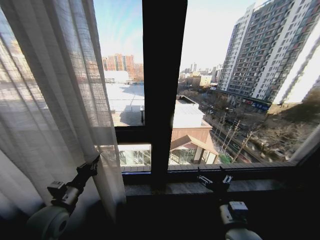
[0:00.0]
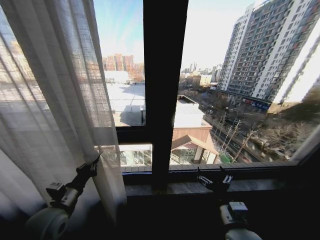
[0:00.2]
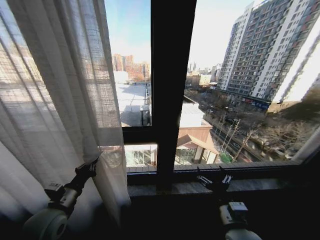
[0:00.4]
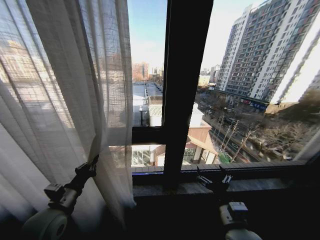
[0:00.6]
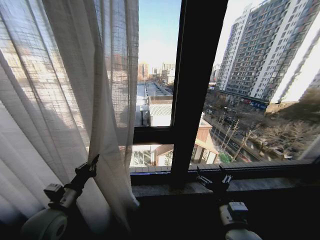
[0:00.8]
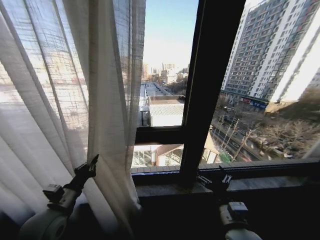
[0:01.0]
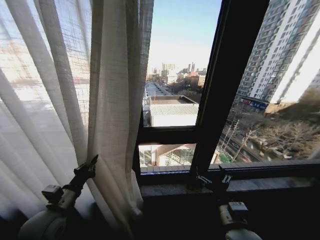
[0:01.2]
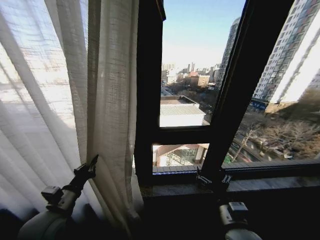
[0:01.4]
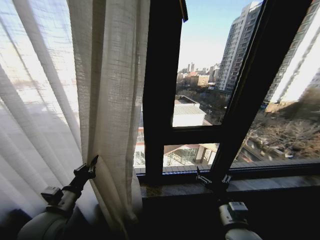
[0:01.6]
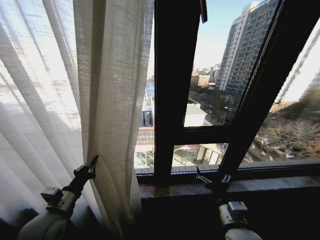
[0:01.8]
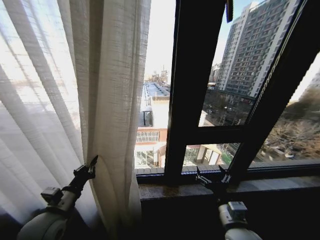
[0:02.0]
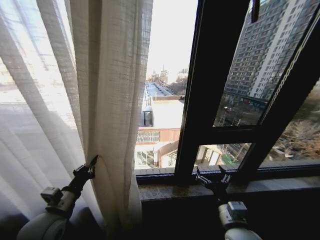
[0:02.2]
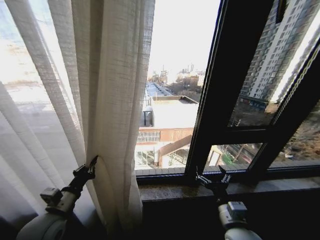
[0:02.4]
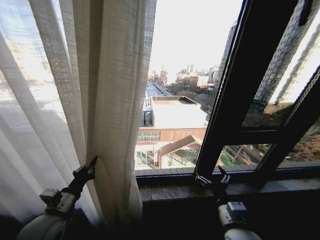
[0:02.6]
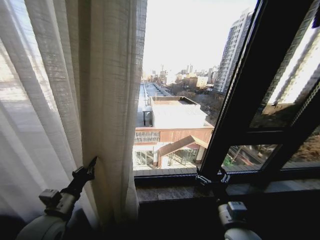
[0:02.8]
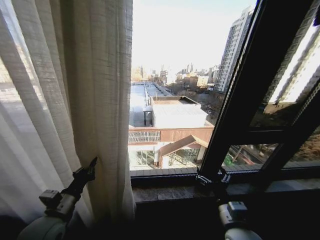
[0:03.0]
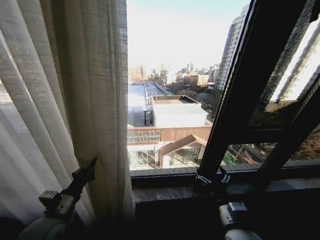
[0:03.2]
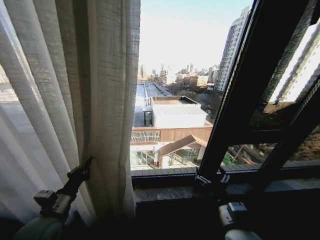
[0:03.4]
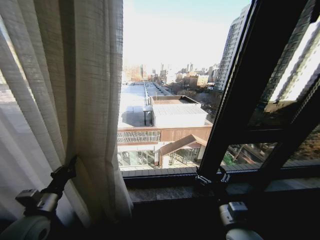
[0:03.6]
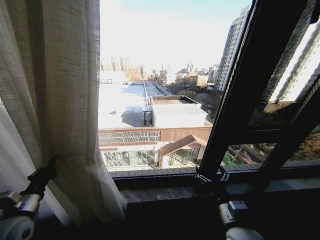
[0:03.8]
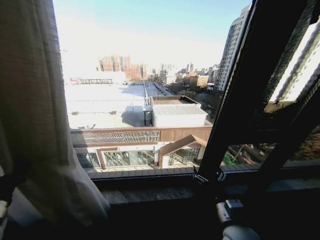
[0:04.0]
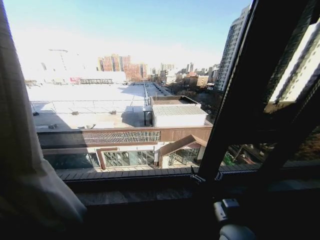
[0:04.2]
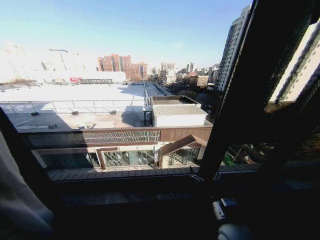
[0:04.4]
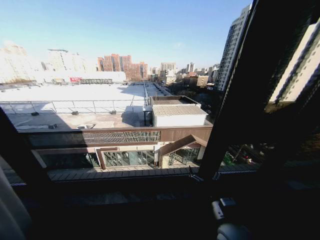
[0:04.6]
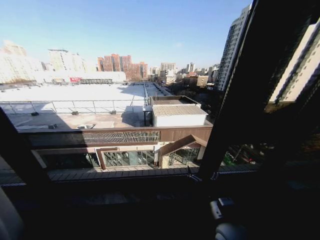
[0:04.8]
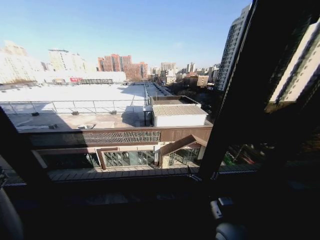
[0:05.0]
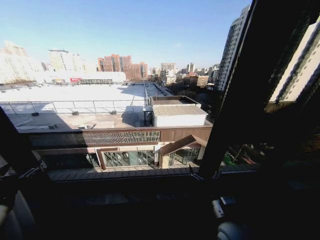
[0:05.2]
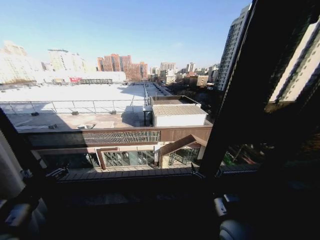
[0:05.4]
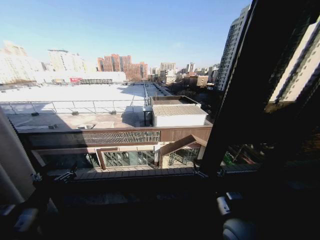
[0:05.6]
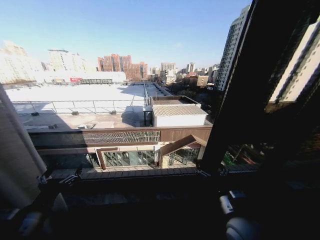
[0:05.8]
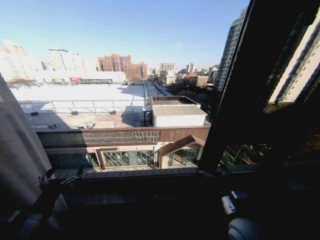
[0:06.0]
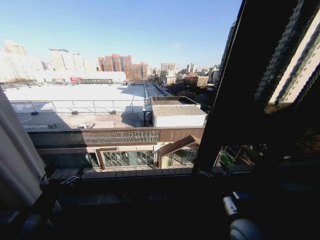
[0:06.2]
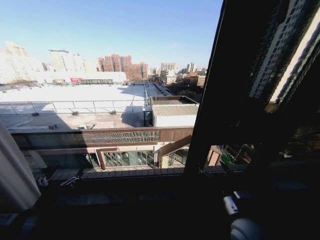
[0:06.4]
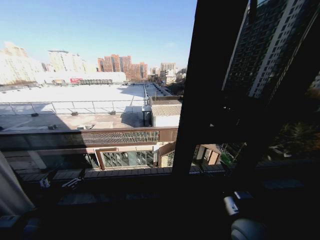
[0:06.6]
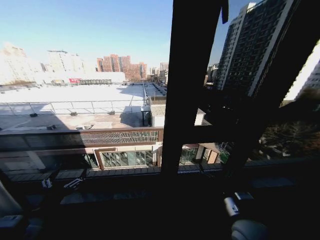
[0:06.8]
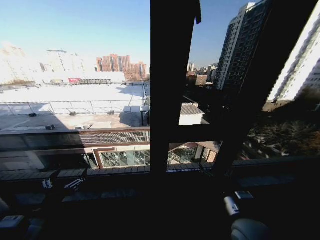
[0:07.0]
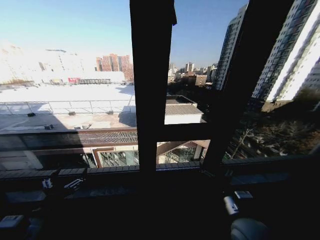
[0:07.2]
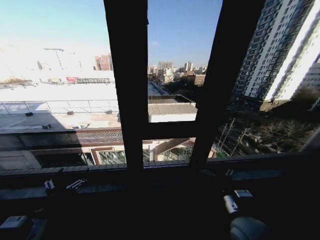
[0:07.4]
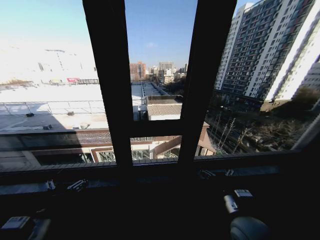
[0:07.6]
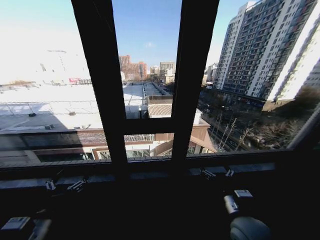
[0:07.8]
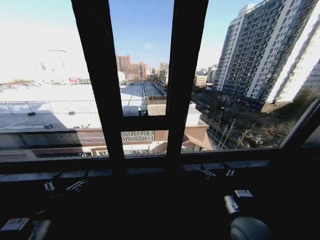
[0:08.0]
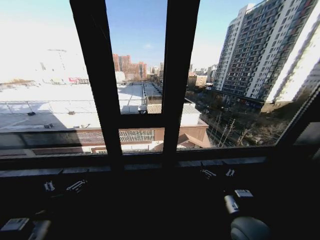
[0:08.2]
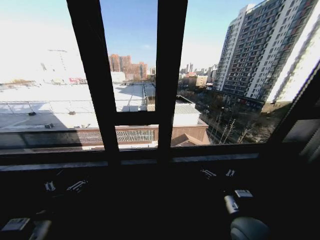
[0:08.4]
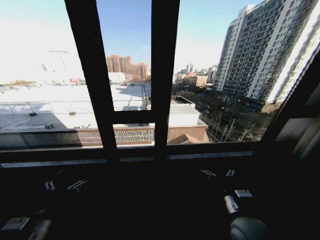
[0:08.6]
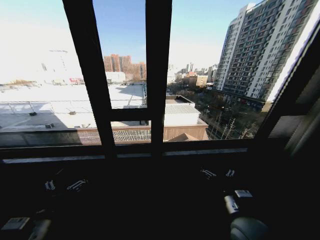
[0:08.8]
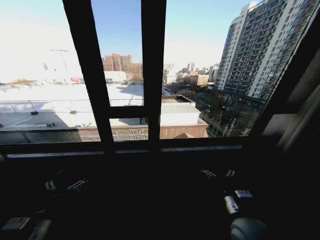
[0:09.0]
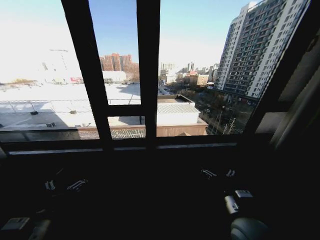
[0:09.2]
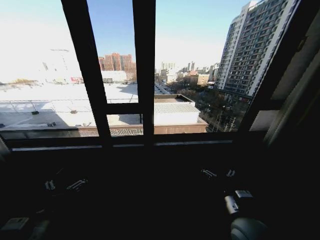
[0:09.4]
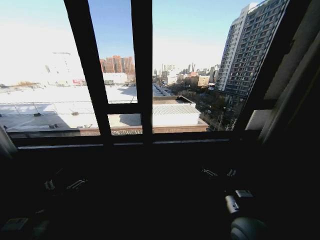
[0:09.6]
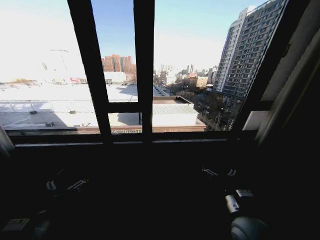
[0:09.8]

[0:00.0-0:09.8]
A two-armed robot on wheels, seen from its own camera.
Task of the whole recording: Open the curtains by pulling them apart, changing their state from closed to fully open.
2.8 to 4.2 s: The left gripper goes about 20 cm to the left.
4.2 to 5.6 s: The left gripper goes some 15 cm to the right, and opens up.

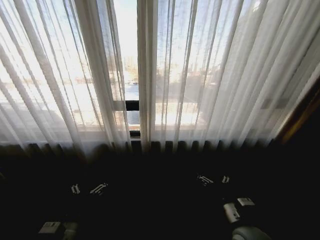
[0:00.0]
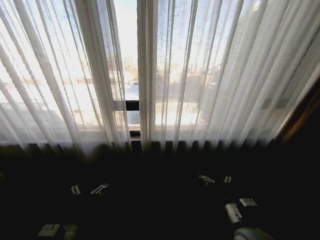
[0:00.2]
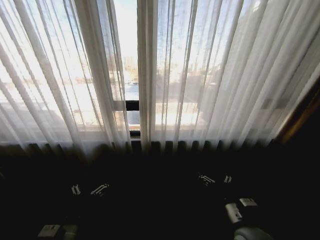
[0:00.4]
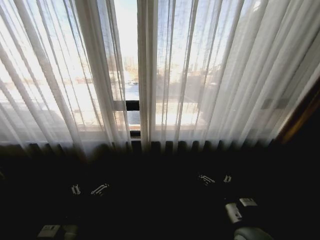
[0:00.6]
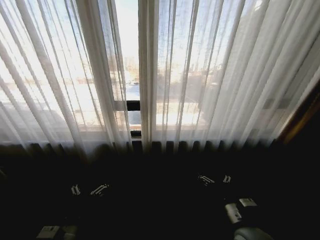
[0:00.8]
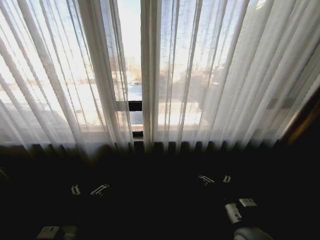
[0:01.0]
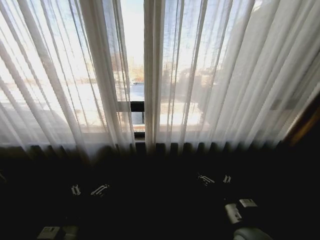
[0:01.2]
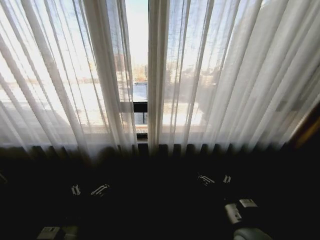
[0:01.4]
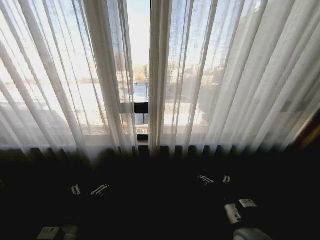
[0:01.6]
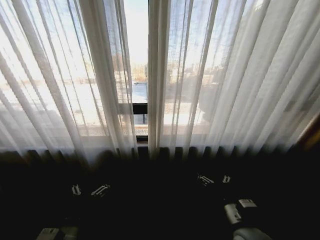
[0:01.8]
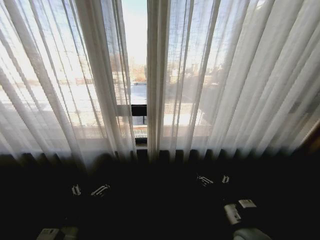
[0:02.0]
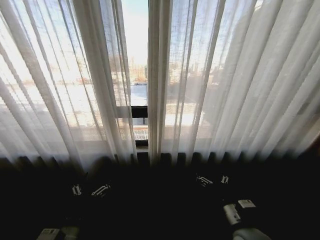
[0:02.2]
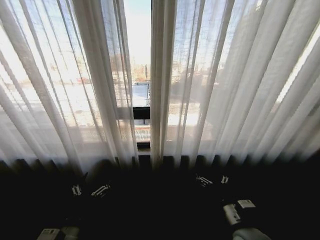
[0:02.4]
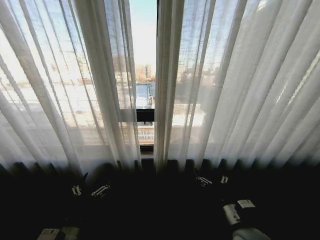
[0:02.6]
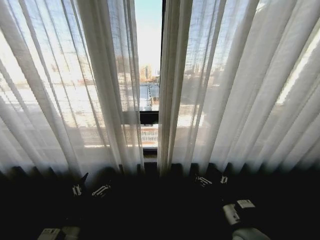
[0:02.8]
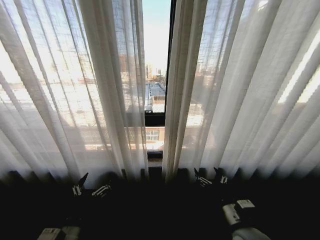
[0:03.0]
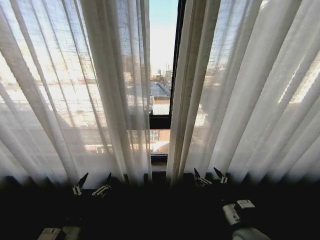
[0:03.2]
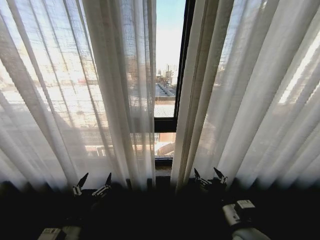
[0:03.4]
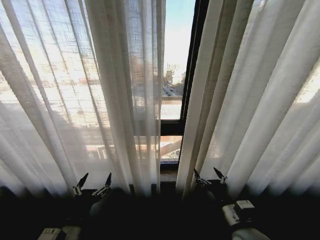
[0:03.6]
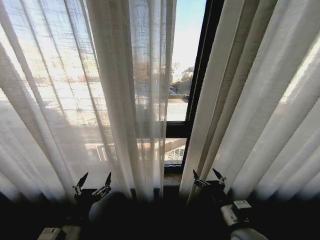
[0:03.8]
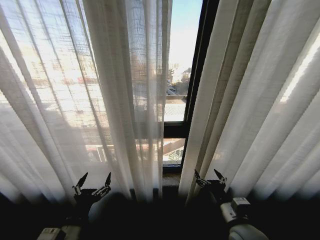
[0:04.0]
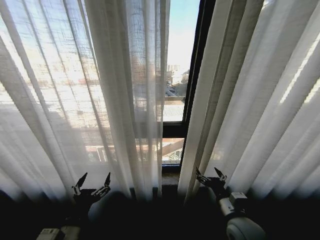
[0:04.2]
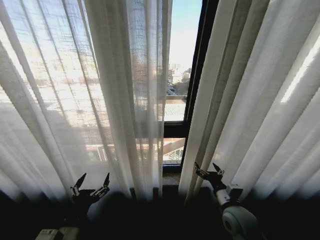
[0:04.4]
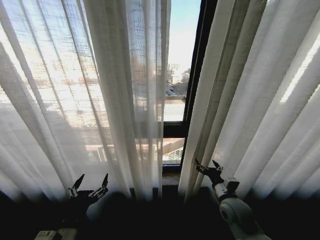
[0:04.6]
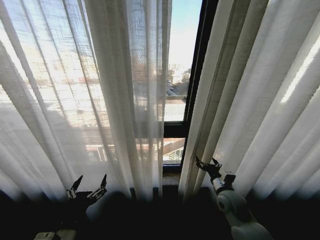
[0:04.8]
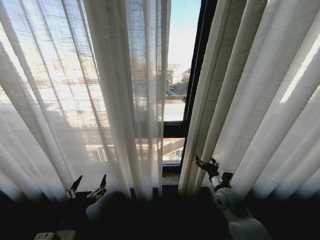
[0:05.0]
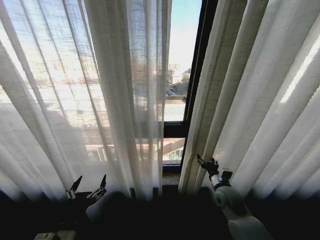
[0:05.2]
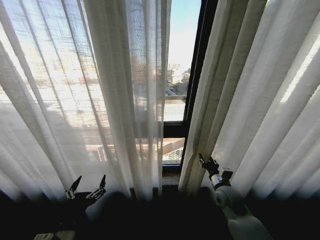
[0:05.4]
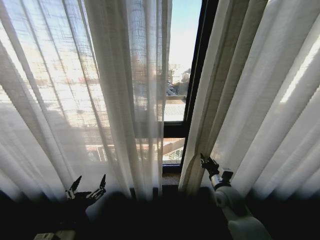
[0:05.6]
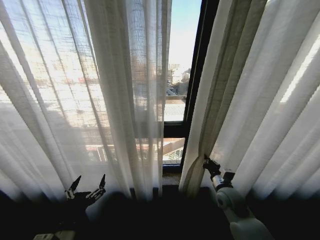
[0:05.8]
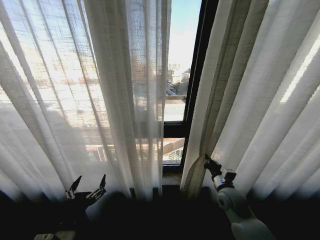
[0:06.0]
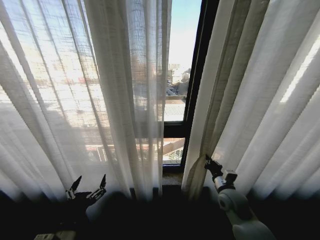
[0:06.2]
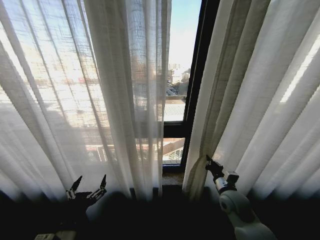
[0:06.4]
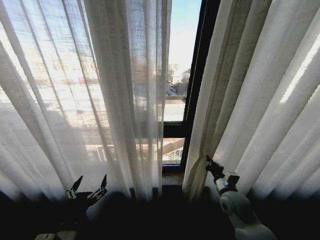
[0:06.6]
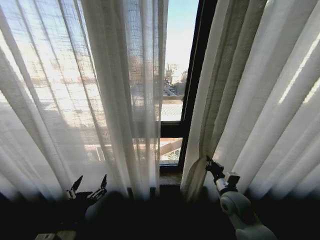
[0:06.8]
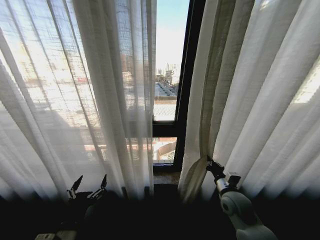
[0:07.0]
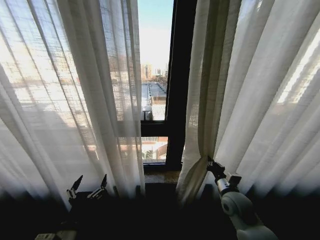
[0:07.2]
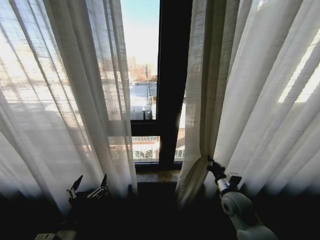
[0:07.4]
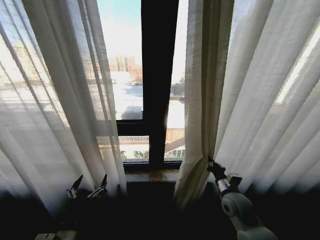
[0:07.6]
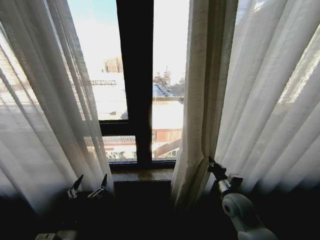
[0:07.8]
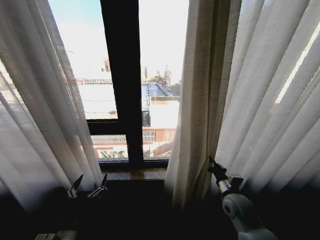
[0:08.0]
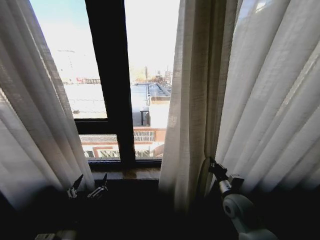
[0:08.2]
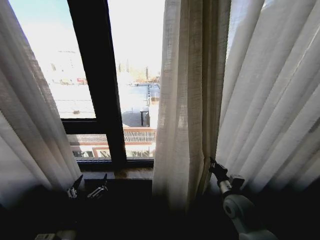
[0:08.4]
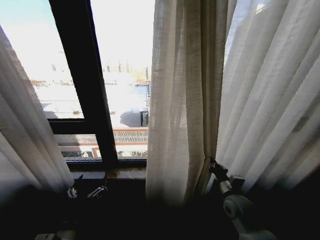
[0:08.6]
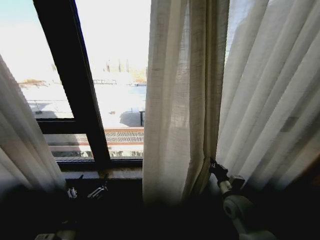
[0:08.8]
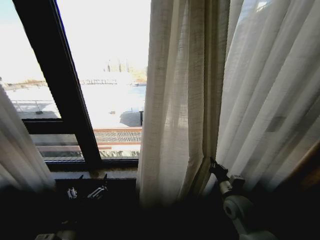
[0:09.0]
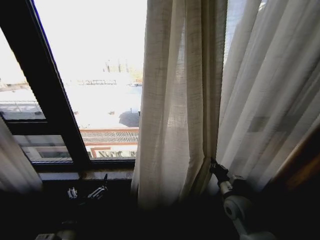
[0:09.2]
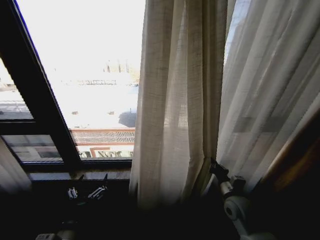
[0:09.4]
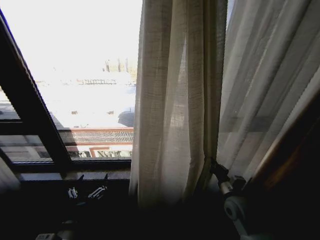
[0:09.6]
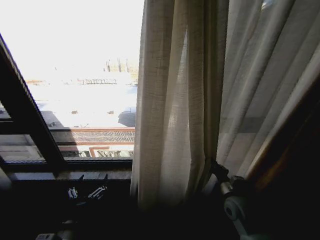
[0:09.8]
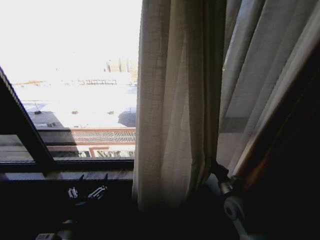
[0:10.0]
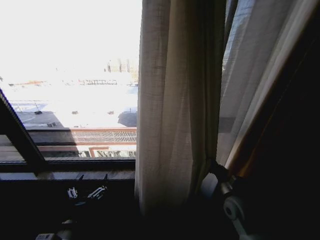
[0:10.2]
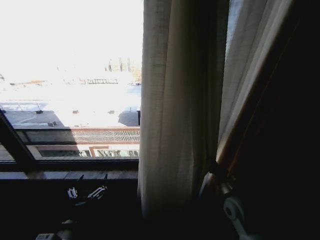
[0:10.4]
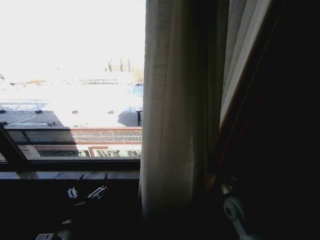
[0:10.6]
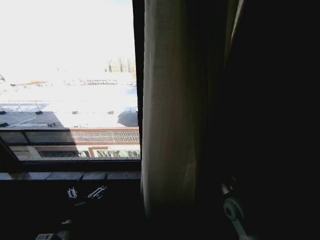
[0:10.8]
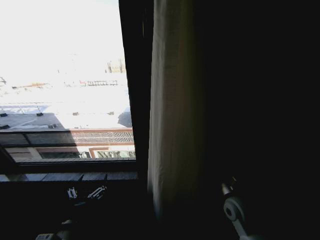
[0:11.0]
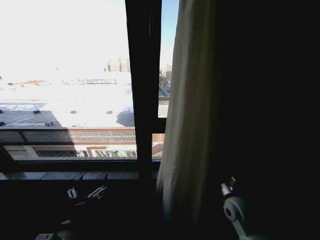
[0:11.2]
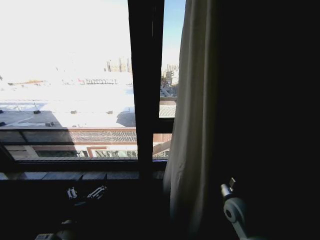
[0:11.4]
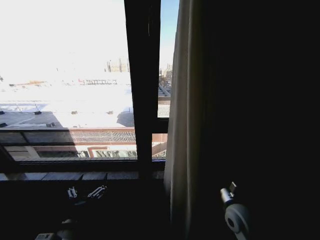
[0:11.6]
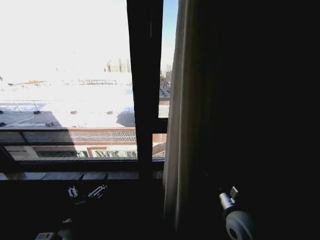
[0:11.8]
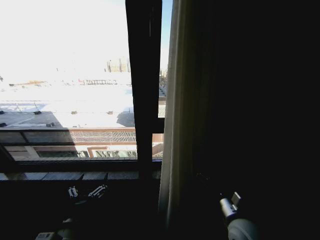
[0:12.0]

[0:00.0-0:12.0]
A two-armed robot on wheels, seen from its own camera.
Task of the whole recording: Open the curtains by pulling them apart, changing their state from closed to fully open.
3.0 to 4.4 s: The right gripper travels forward by approximately 5 cm.
4.4 to 6.0 s: The right gripper moves forward, about 10 cm, and closes up.
10.4 to 12.0 s: The right gripper is displaced backward and to the left by some 10 cm, and opens its fingers.

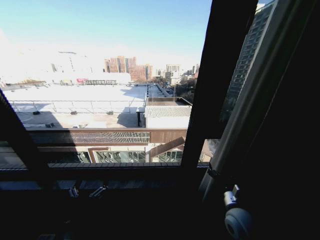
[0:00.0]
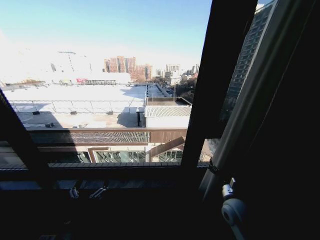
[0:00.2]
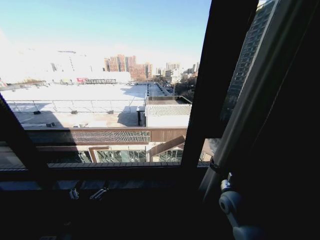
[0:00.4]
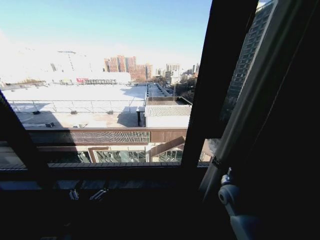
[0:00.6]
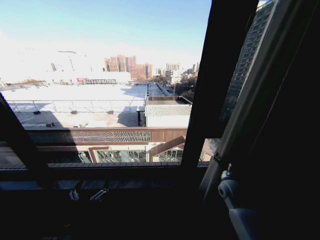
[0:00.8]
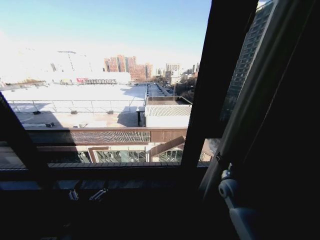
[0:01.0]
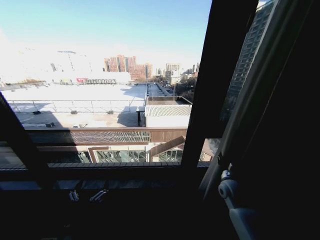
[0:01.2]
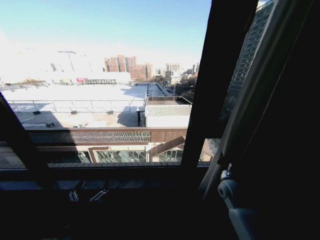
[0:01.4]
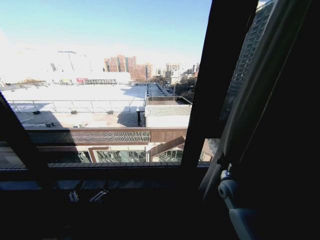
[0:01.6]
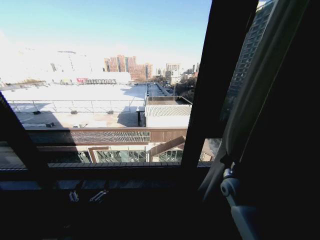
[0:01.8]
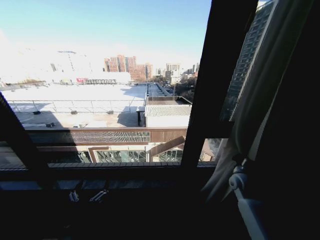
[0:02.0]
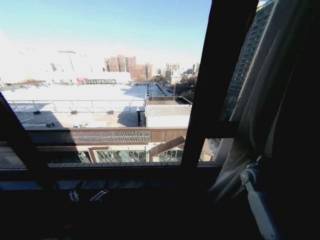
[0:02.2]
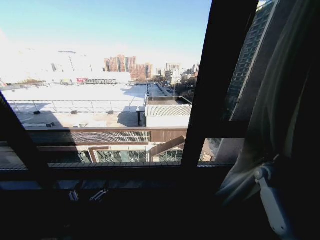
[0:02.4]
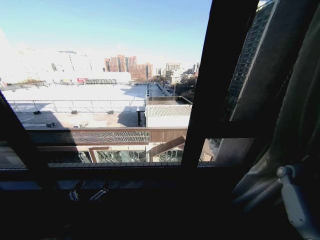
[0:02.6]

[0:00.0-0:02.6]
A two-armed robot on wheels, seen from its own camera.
Task of the whole recording: Open the curtains by pulling them apart, changing their state from closed to fully open.
0.0 to 1.2 s: The right gripper heads forward and to the right, covering roughly 15 cm, and closes its fingers.
1.2 to 2.6 s: The right gripper moves to the right, approximately 25 cm, and closes up.
